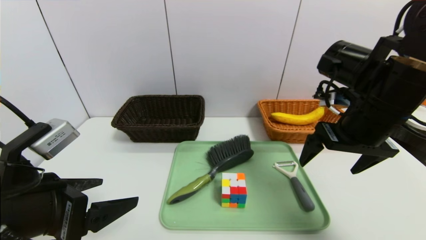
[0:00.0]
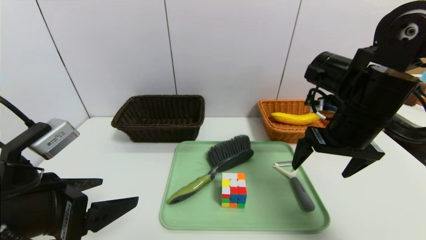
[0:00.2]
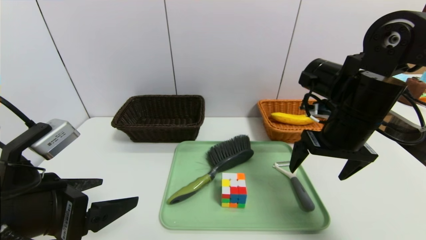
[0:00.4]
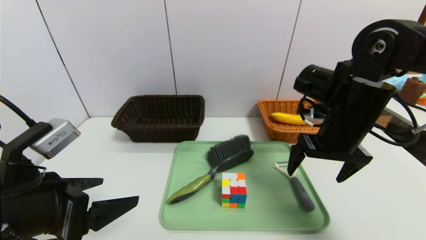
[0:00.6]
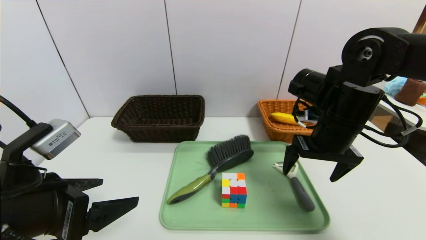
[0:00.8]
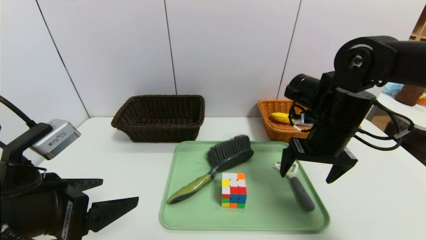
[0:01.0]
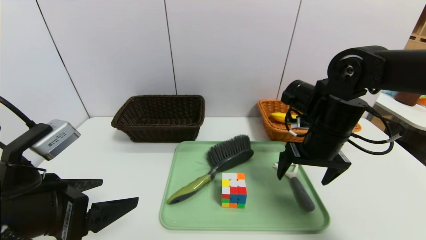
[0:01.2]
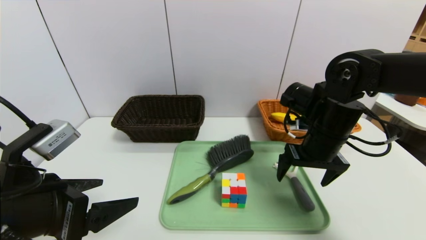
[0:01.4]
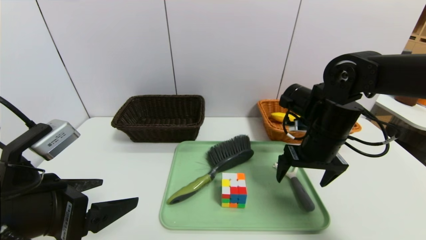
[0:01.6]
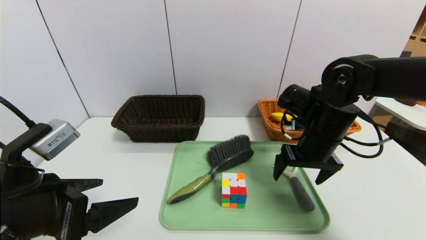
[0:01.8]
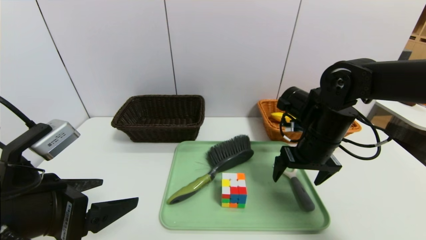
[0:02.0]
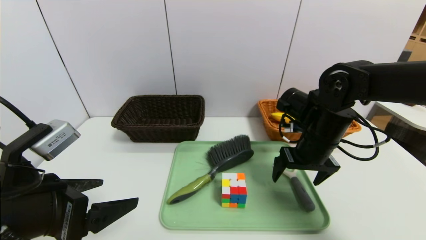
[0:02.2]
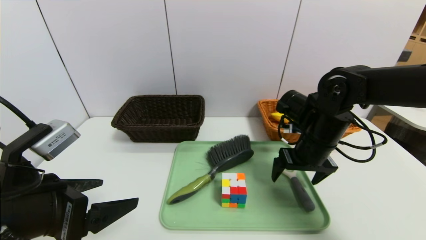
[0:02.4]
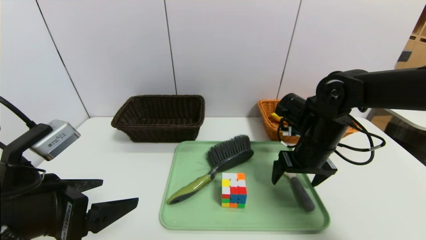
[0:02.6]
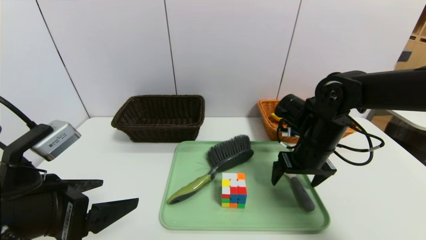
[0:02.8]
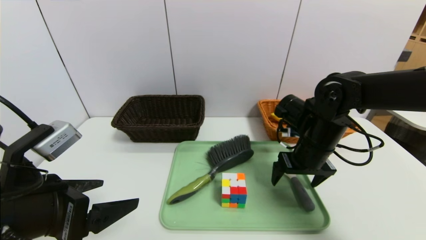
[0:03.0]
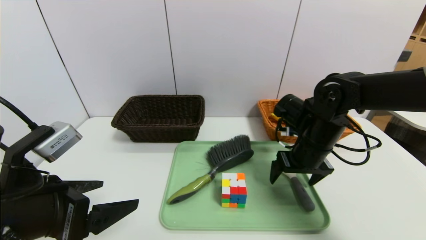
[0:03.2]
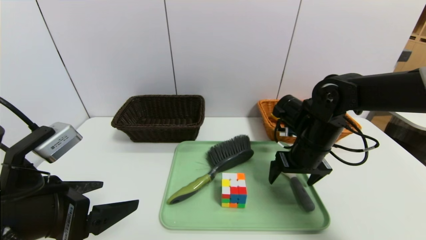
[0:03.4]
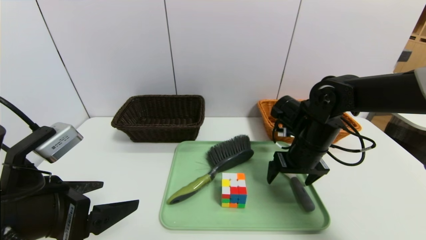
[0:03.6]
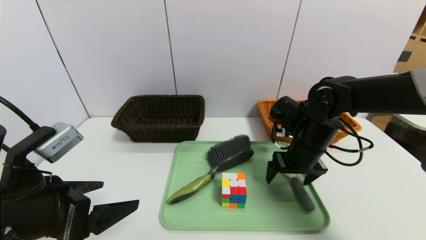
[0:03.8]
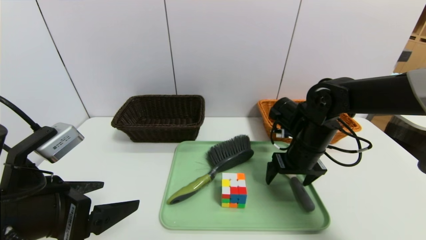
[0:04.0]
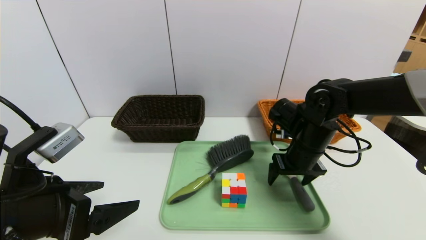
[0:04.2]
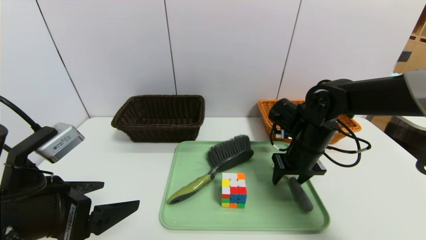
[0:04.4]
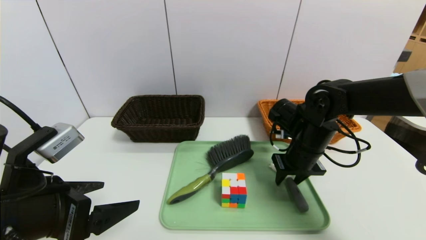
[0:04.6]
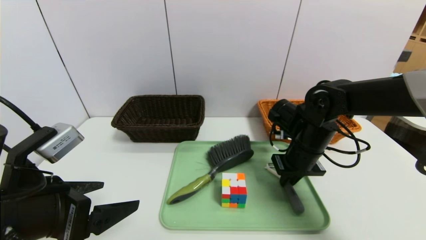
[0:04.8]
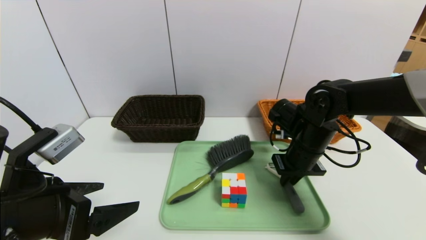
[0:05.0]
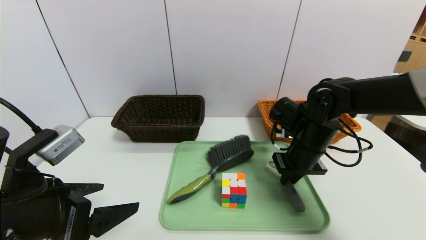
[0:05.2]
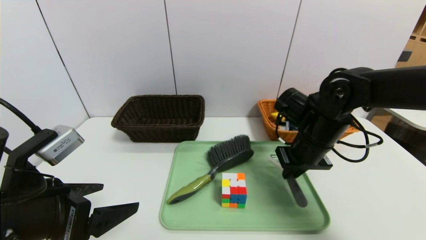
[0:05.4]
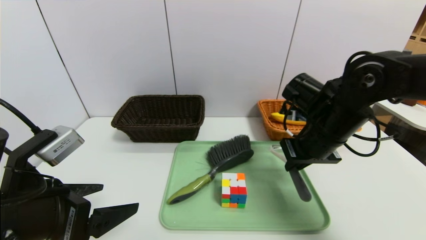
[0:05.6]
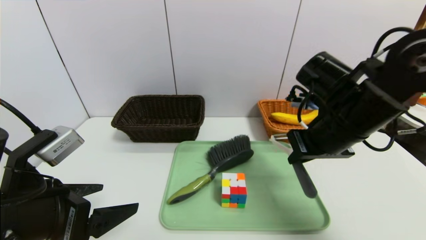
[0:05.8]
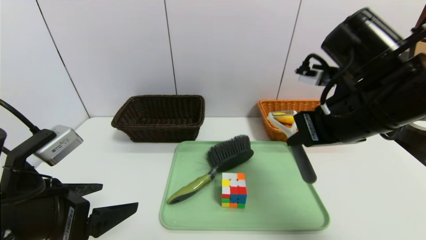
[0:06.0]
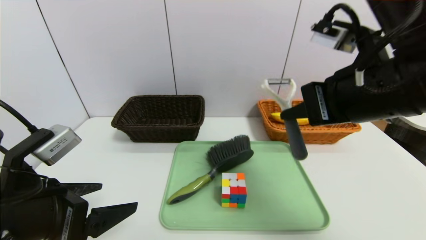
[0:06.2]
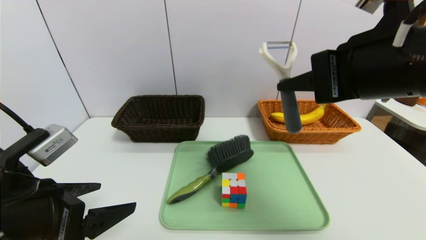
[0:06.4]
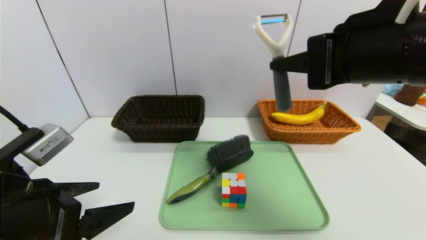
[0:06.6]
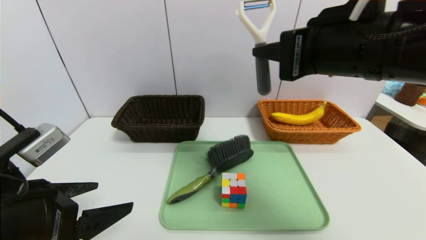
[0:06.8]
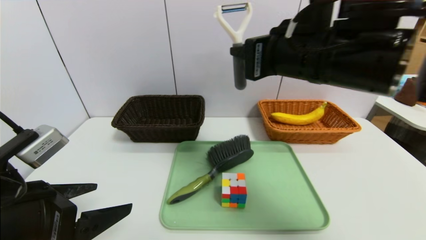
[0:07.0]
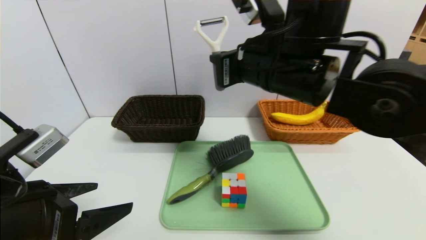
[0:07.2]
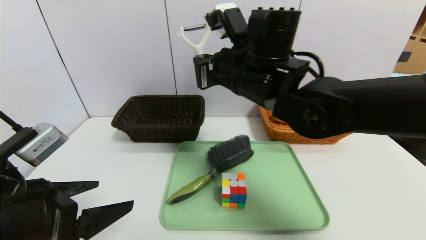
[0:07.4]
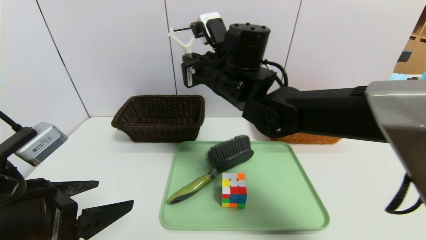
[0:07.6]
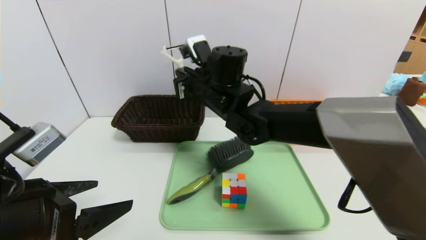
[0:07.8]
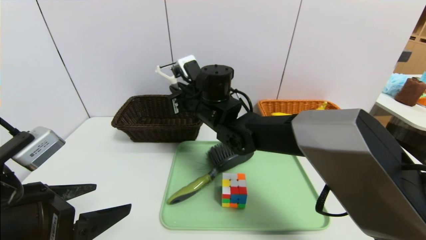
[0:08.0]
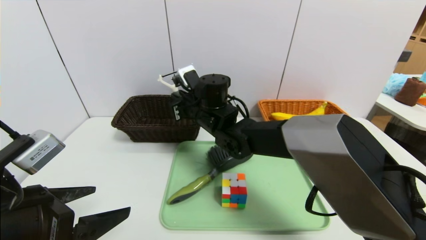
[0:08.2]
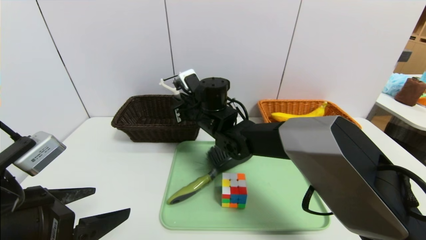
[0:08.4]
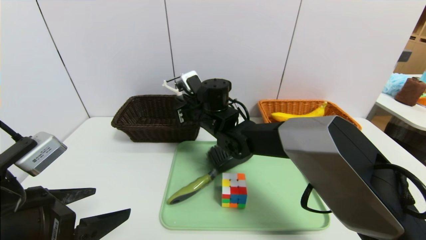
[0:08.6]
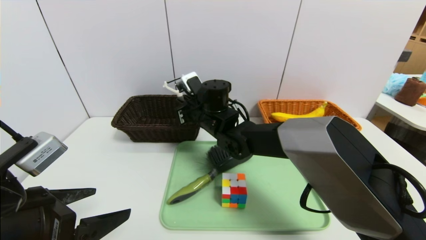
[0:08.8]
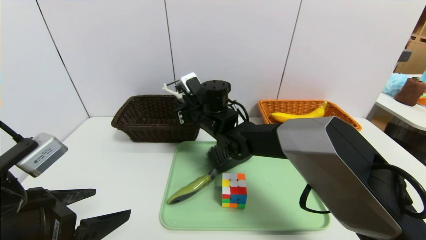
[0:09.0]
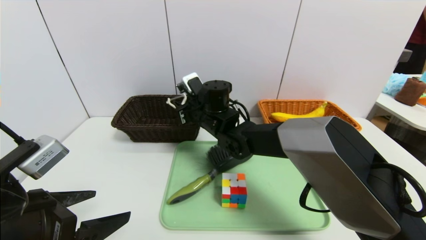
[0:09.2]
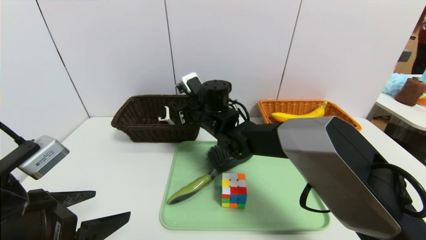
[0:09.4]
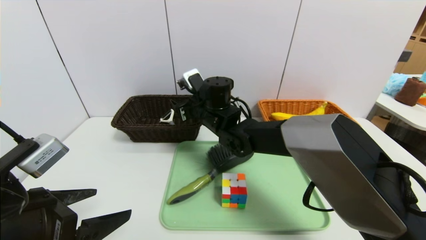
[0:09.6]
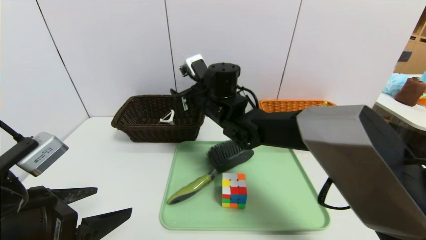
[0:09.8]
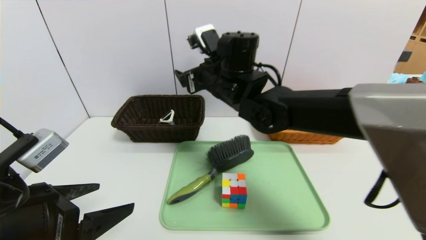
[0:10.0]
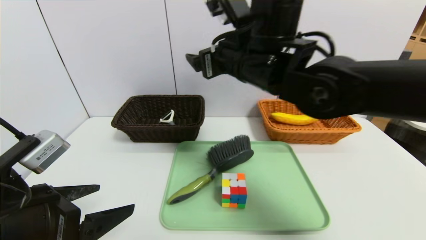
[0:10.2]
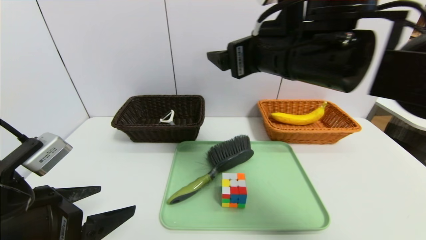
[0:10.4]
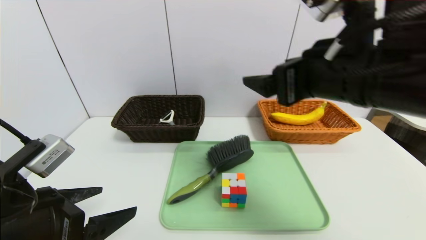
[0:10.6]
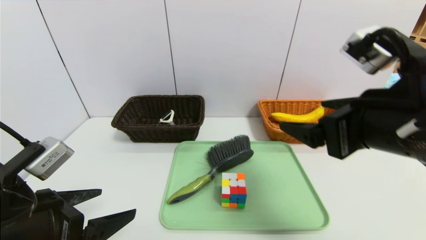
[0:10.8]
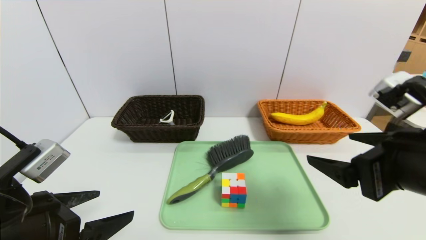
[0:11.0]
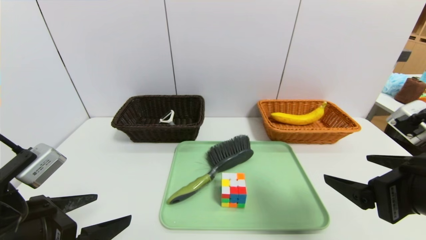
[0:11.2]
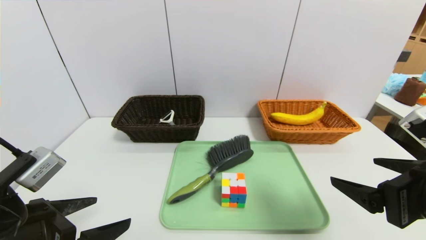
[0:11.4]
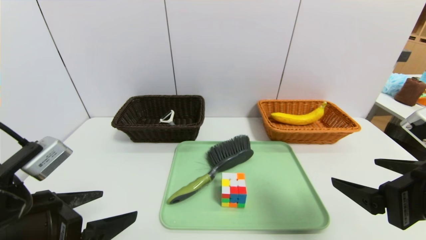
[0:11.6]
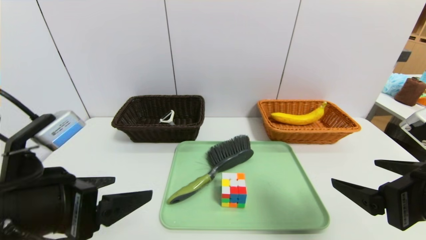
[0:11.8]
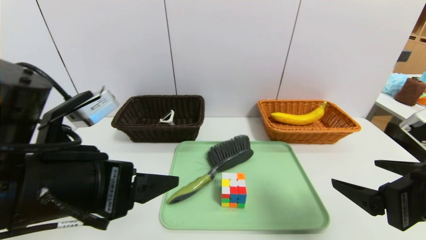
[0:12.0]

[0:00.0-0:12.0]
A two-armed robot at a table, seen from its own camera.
Task of the whole recording: place the food in the right basket with the right gripper, and place the non food items in the left basket with the left gripper.
0:00.0 to 0:01.6: The right gripper goes roughly 5 cm downward.
0:01.6 to 0:03.0: The grippers move only a little.
0:03.0 to 0:04.4: The right gripper closes.
0:04.4 to 0:06.0: The right gripper travels upward and backward by about 20 cm, and closes its fingers.
0:06.0 to 0:07.6: The right gripper heads to the left and forward, covering about 20 cm.
0:07.6 to 0:09.0: The right gripper moves downward, some 10 cm.
0:09.0 to 0:10.4: The right gripper is displaced upward, backward and to the right by about 25 cm, and opens.
0:10.4 to 0:12.0: The left gripper goes some 10 cm to the right and upward. The right gripper goes some 20 cm to the right, backward and downward.

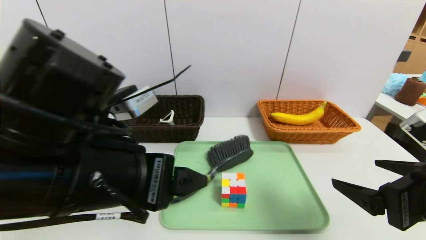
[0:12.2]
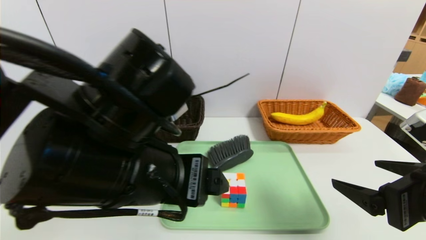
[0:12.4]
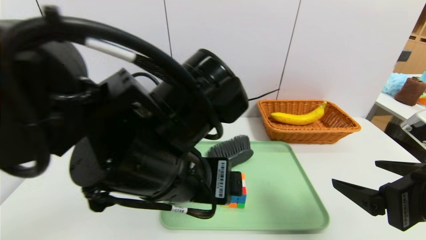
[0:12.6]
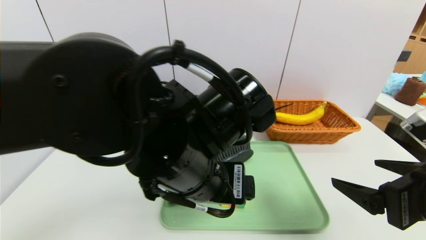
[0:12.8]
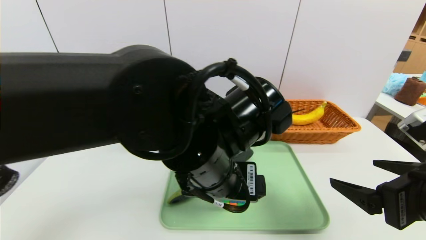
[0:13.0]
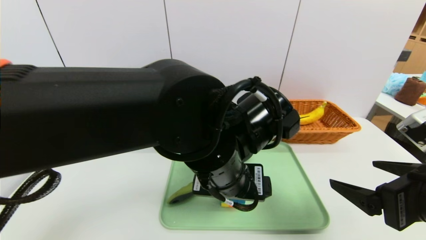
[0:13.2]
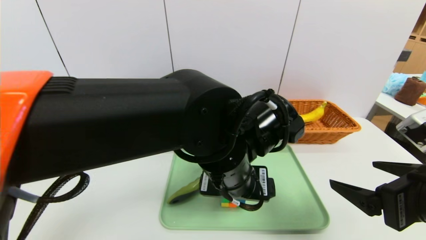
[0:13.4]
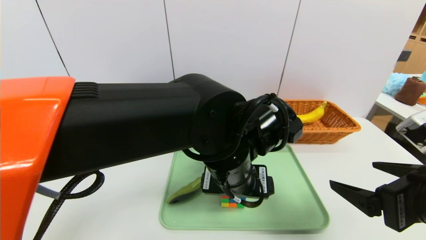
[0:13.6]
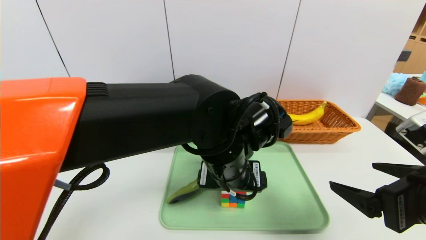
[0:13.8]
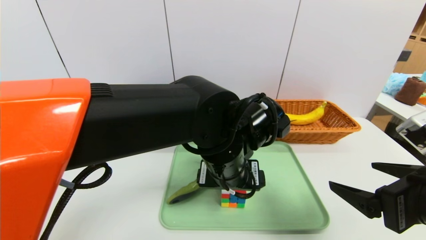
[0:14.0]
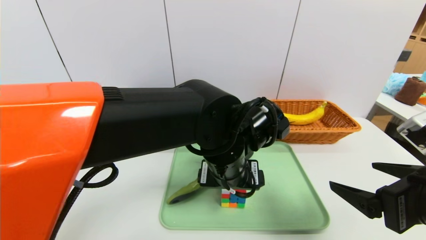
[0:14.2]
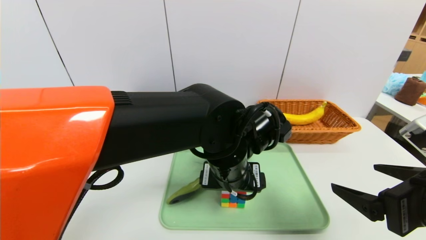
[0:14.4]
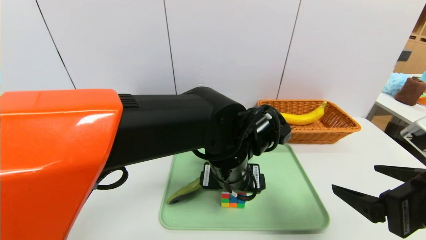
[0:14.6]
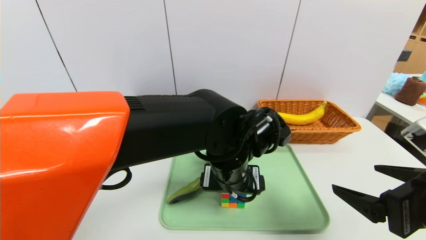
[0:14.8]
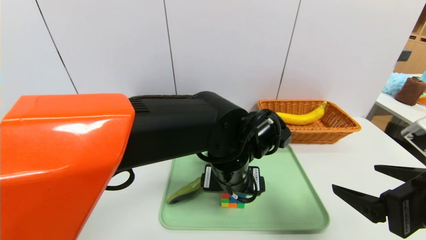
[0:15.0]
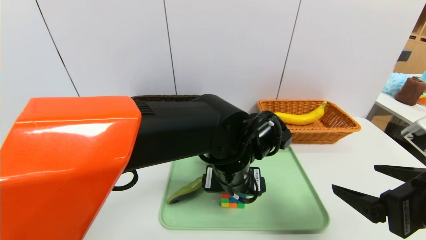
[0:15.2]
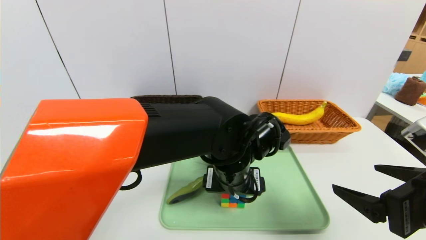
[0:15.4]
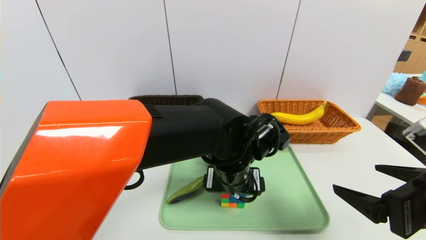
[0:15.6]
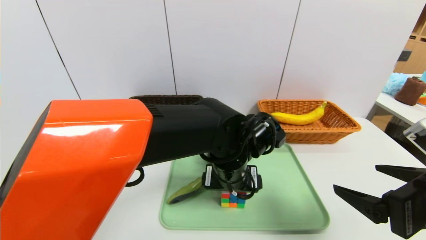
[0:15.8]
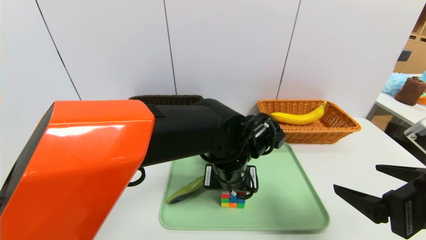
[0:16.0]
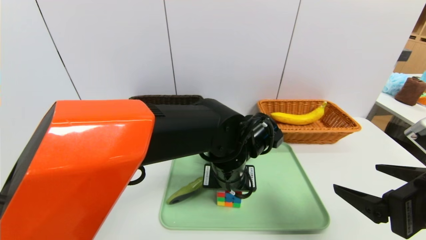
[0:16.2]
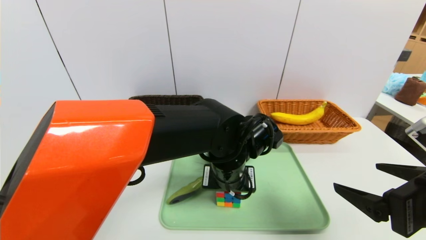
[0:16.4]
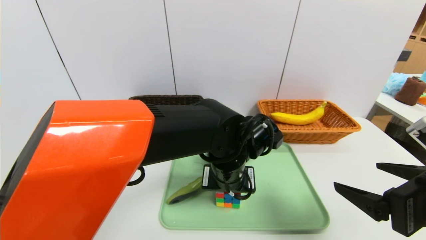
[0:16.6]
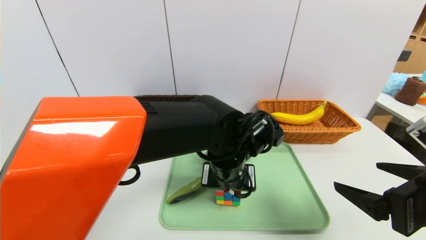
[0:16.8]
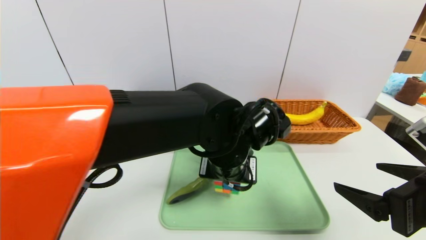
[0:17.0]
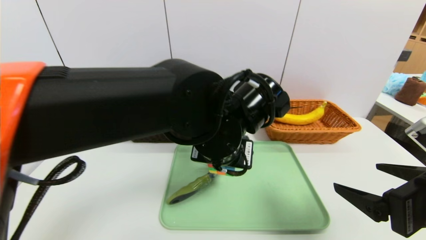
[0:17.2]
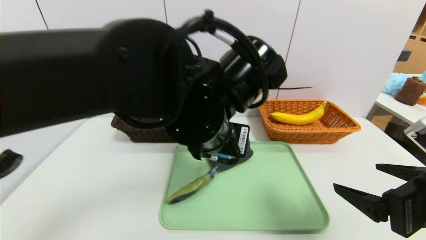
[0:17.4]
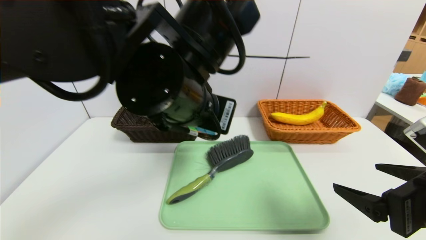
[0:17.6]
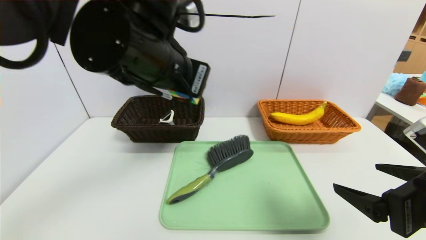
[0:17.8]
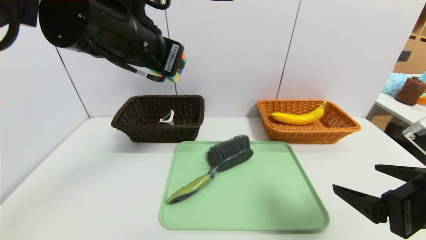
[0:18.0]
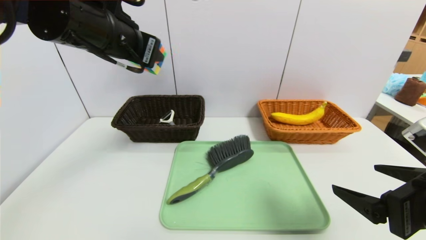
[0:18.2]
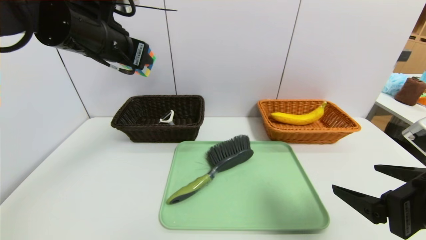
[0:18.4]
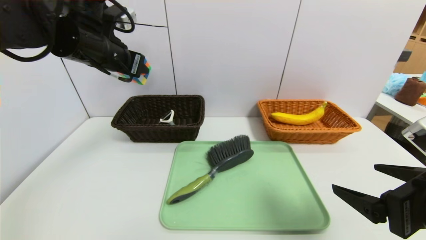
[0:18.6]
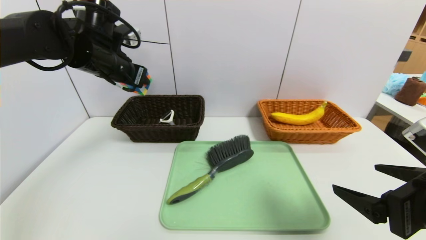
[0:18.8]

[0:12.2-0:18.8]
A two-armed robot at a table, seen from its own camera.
Task of the whole recording: place the food in the right basket with the right gripper, and place the non food items in the left basket with the left gripper.
0:12.2 to 0:13.8: The left gripper moves to the right, forward and downward, roughly 20 cm.
0:15.4 to 0:17.2: The left gripper is displaced upward by approximately 5 cm, and closes its fingers.
0:17.2 to 0:18.8: The left gripper is displaced to the left and forward by about 25 cm.
